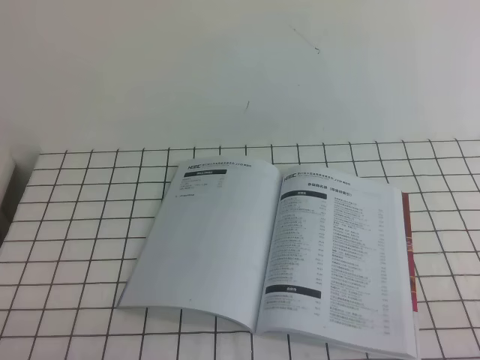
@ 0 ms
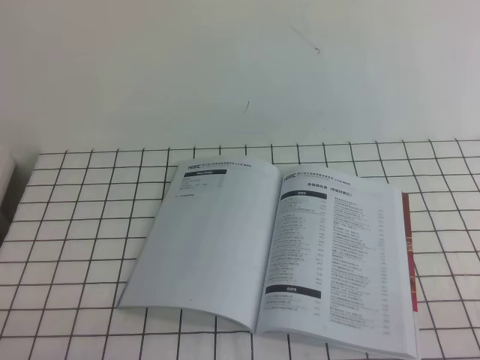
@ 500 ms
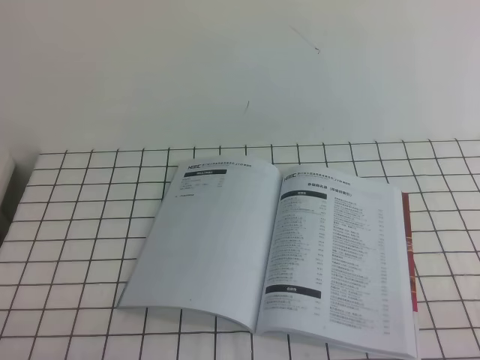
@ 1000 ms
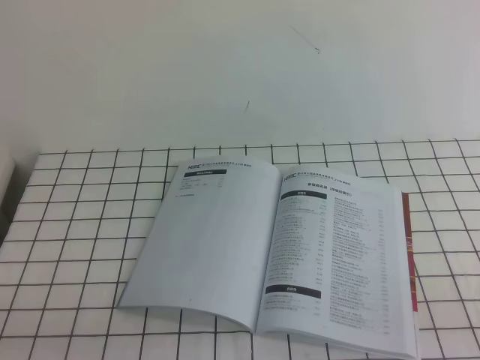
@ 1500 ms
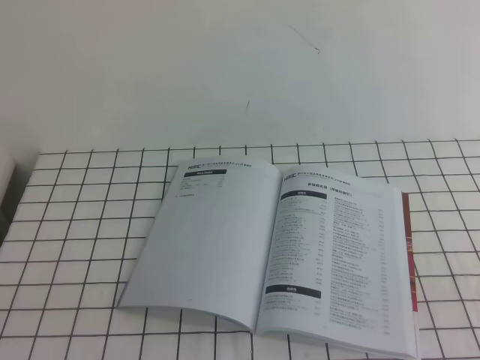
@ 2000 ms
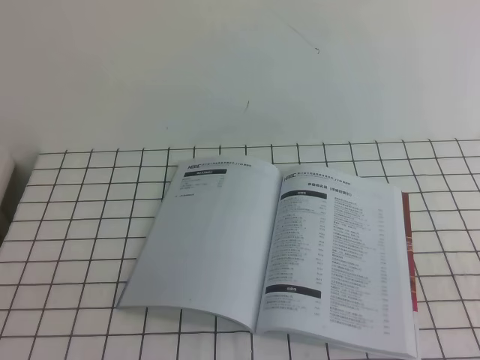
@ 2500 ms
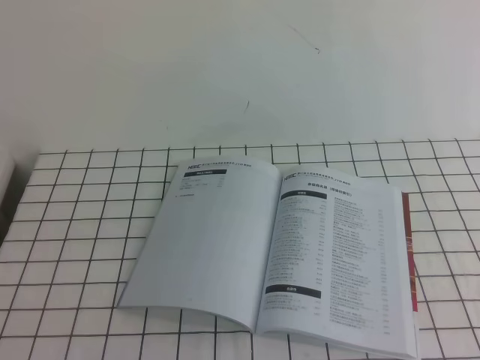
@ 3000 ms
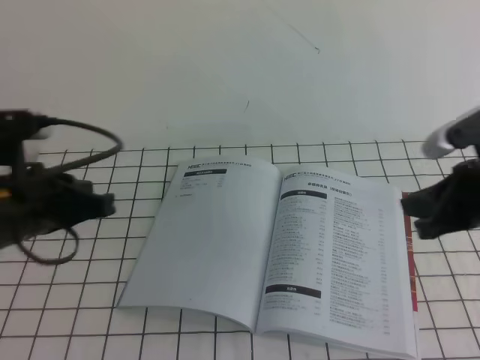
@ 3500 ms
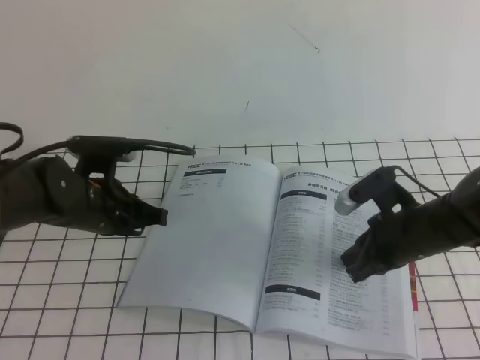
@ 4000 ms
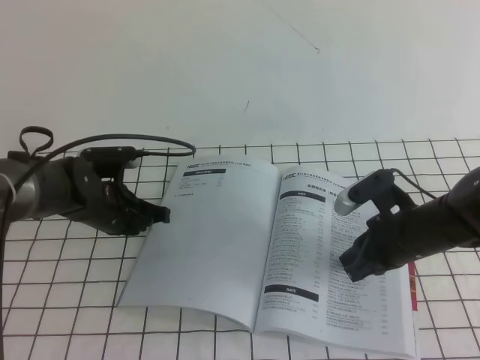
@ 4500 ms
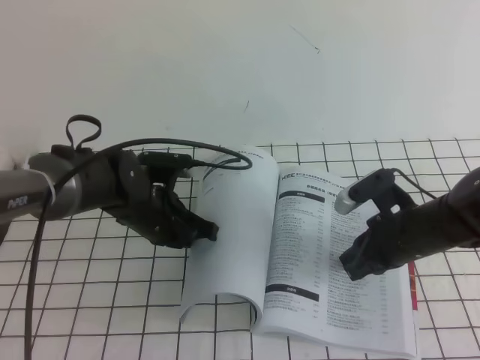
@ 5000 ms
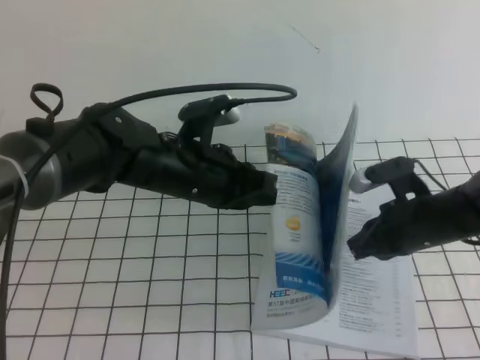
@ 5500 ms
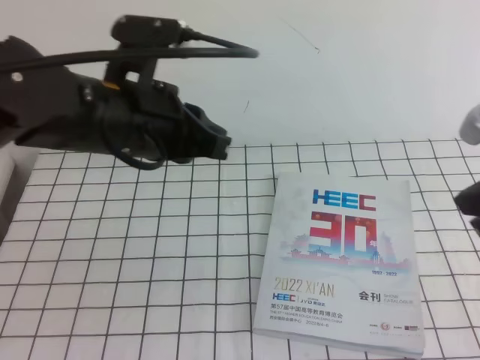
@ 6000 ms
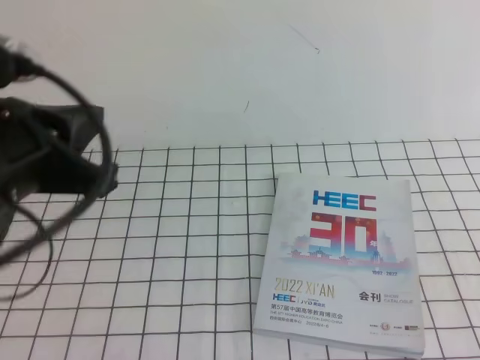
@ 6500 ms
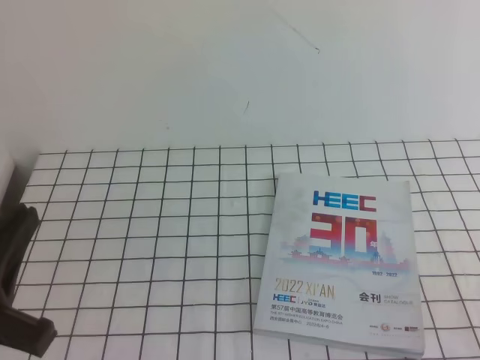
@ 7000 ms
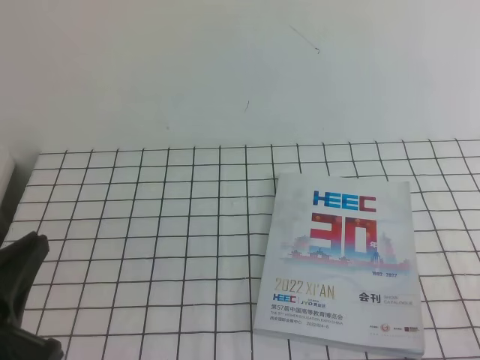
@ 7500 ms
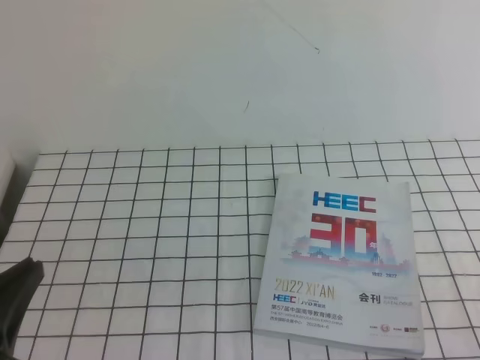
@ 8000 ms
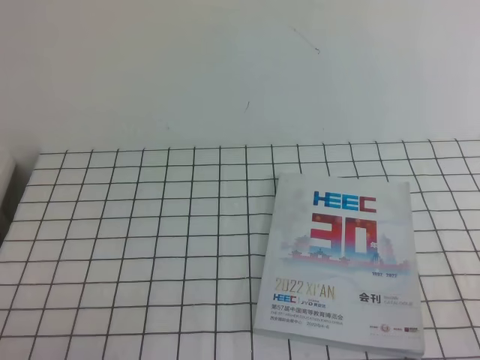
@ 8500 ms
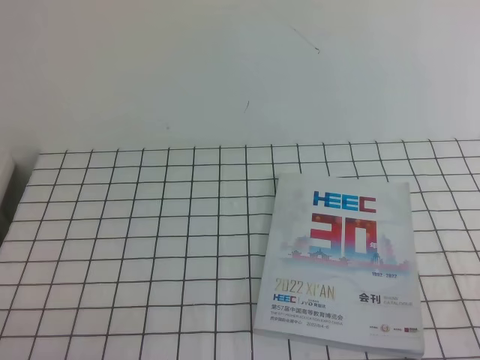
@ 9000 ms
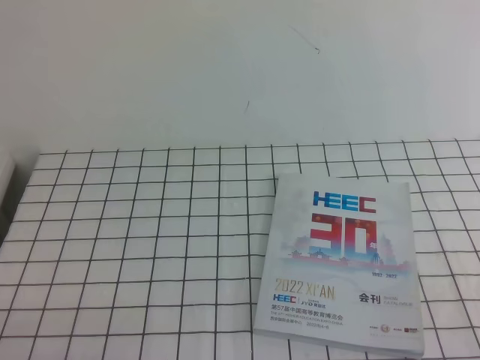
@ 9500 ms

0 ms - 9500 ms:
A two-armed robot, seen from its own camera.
Task of the whole recording: on the white tablecloth, hold the book with one hand and close it with the other.
2000 ms - 4000 ms: The right gripper is displaced forward and to the left by roughly 30 cm; the left gripper travels forward by some 30 cm.
4000 ms - 5500 ms: The left gripper heads to the right, covering approximately 10 cm.
5500 ms - 7500 ms: The left gripper shifts approximately 30 cm backward and to the left. The right gripper moves backward and upward, approximately 30 cm.
7500 ms - 9500 ms: The left gripper goes some 10 cm downward and backward.
